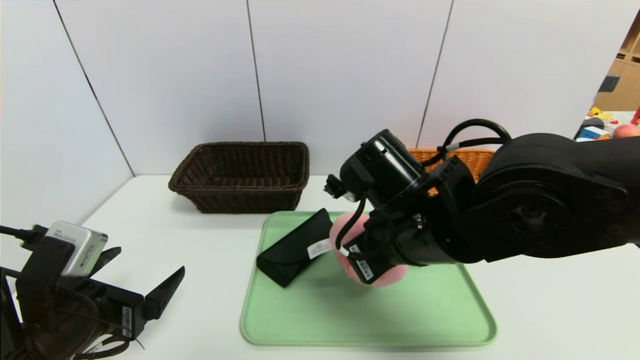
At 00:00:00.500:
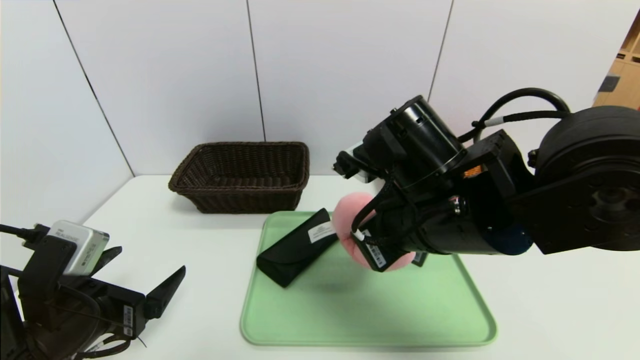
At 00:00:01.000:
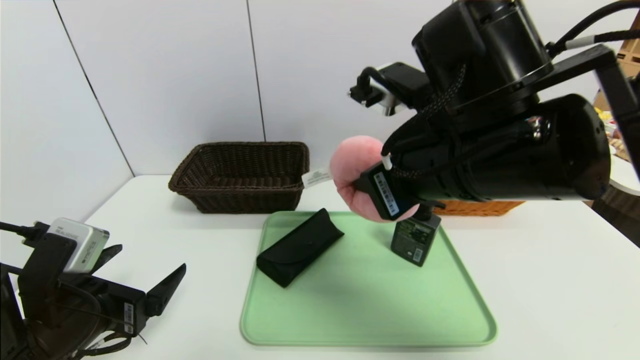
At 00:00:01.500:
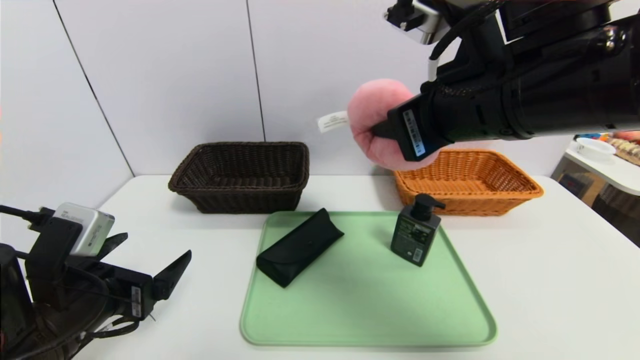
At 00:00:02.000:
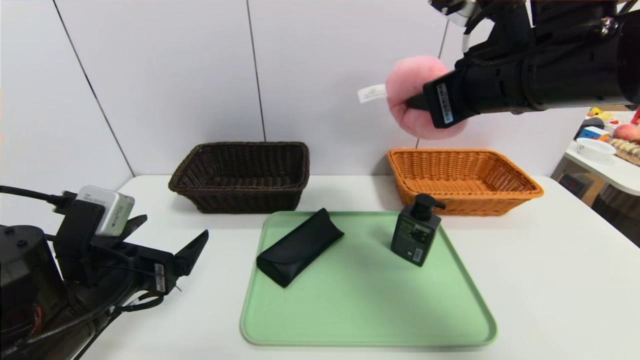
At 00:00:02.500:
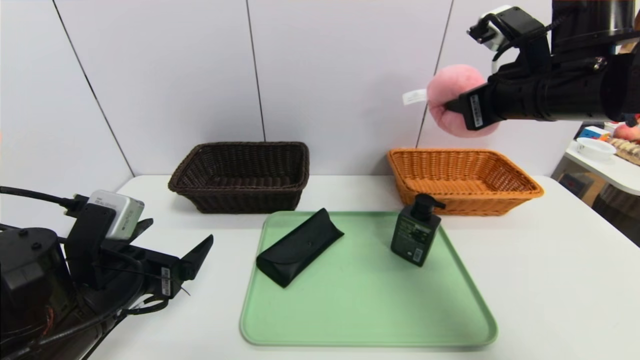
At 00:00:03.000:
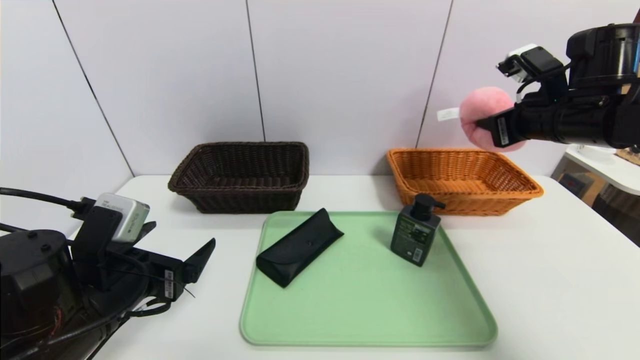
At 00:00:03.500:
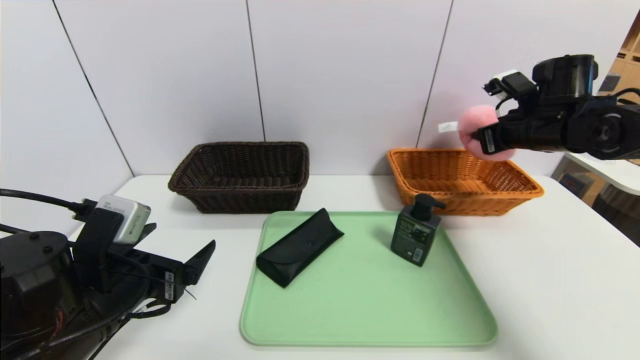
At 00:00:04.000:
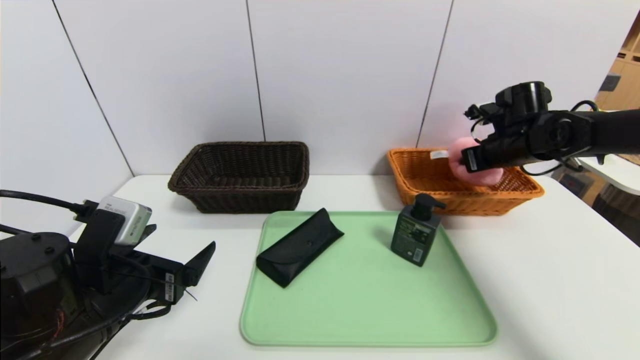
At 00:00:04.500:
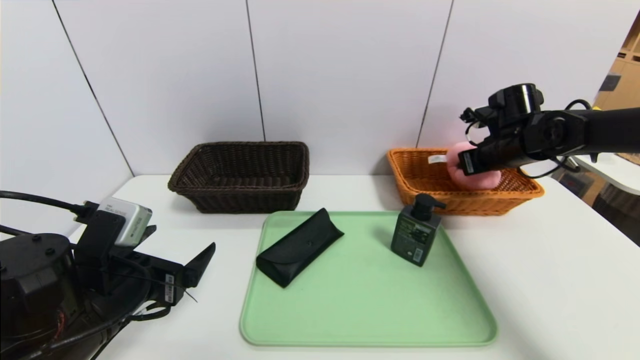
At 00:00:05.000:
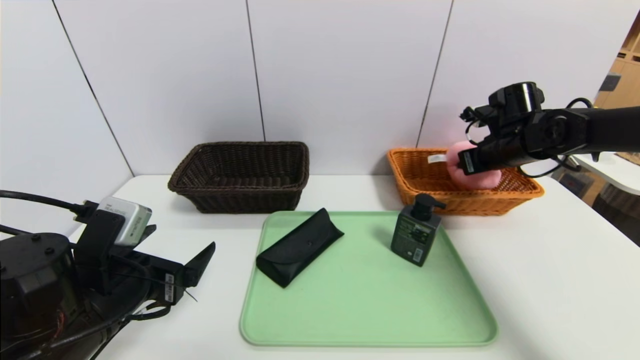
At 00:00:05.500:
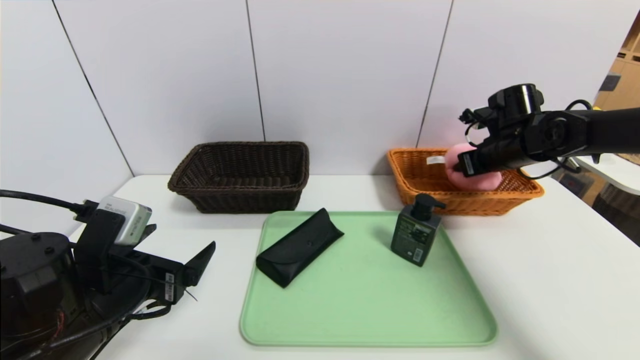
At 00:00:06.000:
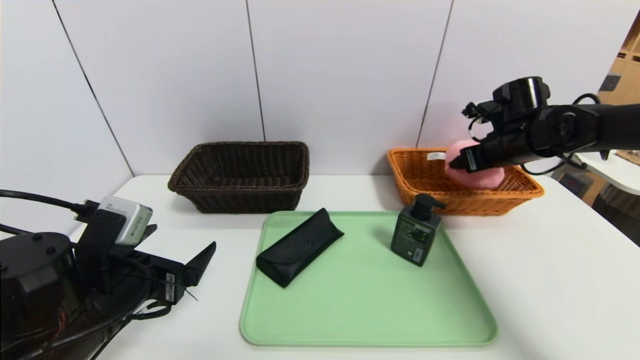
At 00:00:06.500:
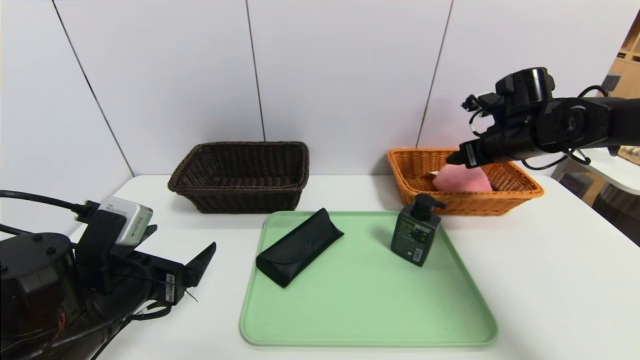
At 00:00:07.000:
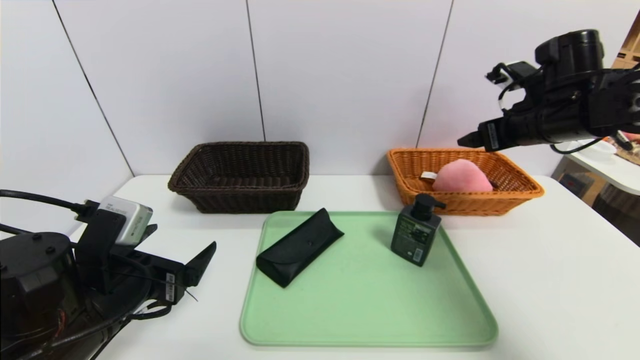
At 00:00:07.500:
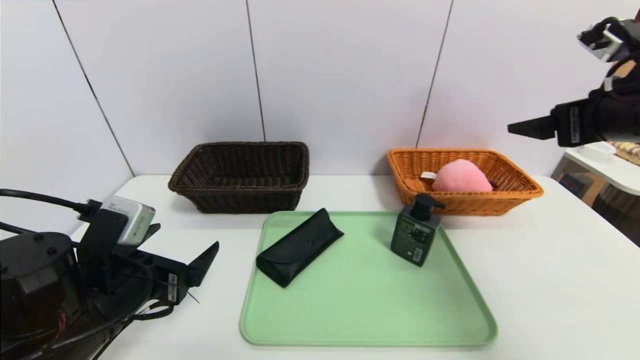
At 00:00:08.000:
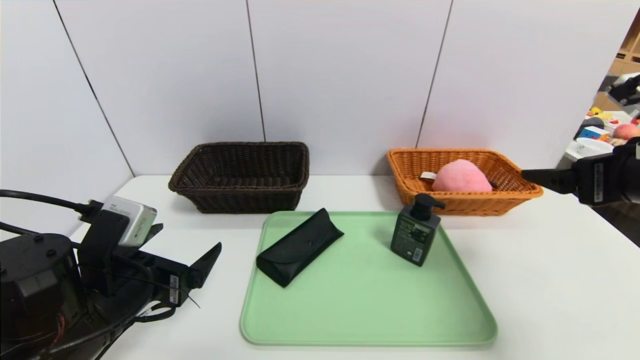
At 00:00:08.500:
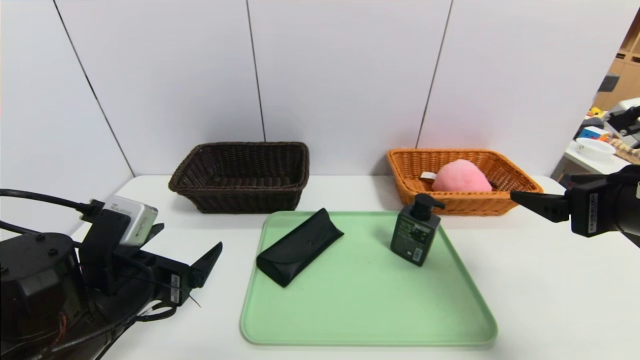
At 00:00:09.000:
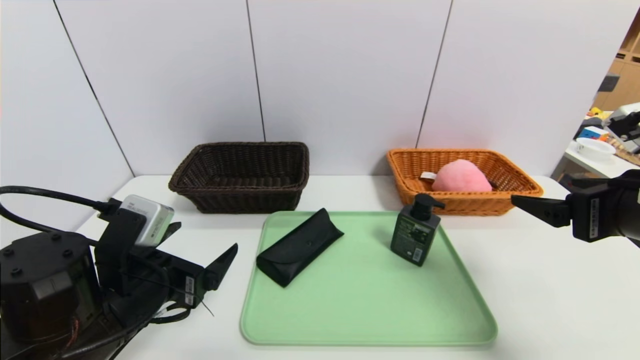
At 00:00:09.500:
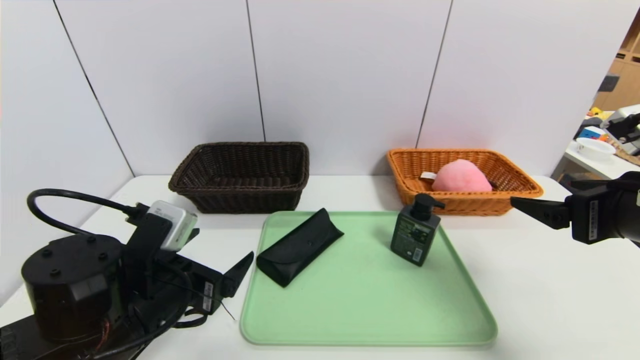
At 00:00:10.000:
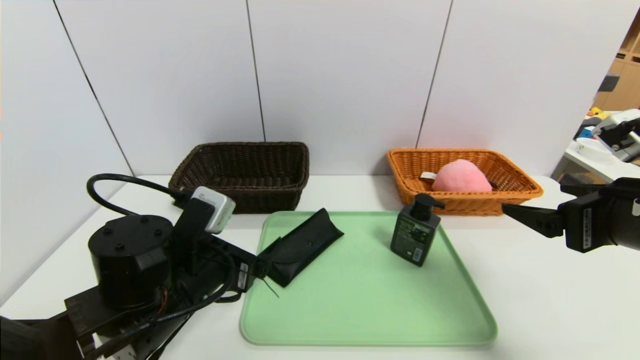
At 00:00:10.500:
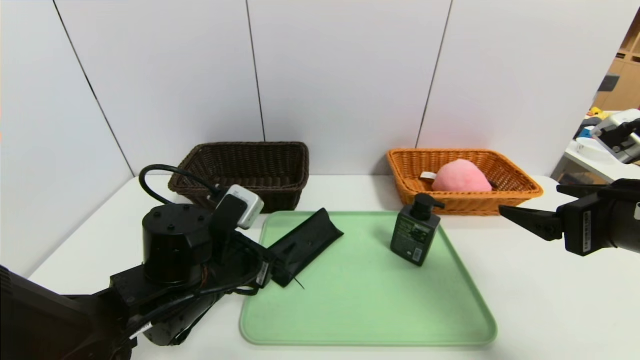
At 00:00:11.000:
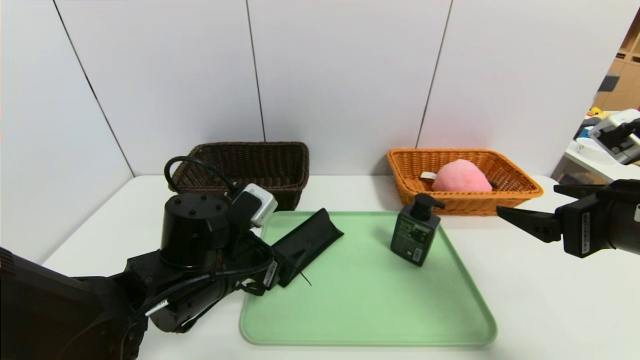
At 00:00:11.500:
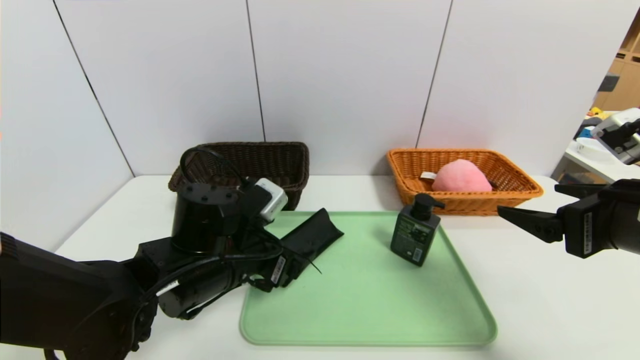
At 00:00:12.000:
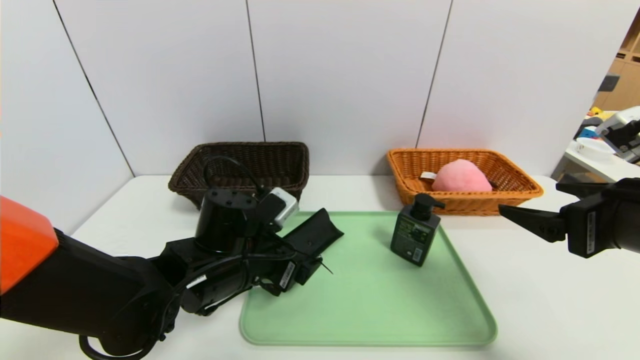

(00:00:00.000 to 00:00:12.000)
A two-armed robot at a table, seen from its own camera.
Task of the whole recording: place the food in the right basket with the right gripper, and place the non food items in the left basket with the left gripper.
Step, 00:00:00.000 - 00:00:06.500: Grasp the peach doll and put it in the right basket.
00:00:00.000 - 00:00:02.000: The right gripper goes roughly 15 cm upward and to the right.
00:00:02.000 - 00:00:04.000: The right gripper is displaced forward, to the right and downward by about 25 cm.
00:00:04.000 - 00:00:06.000: The right gripper opens its fingers.
00:00:06.000 - 00:00:08.000: The right gripper heads backward, covering roughly 20 cm.
00:00:08.000 - 00:00:10.000: The left gripper shifts about 5 cm to the right.
00:00:10.000 - 00:00:12.000: The left gripper changes place by some 5 cm.

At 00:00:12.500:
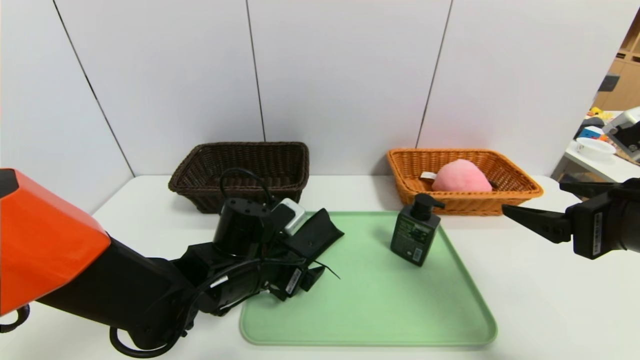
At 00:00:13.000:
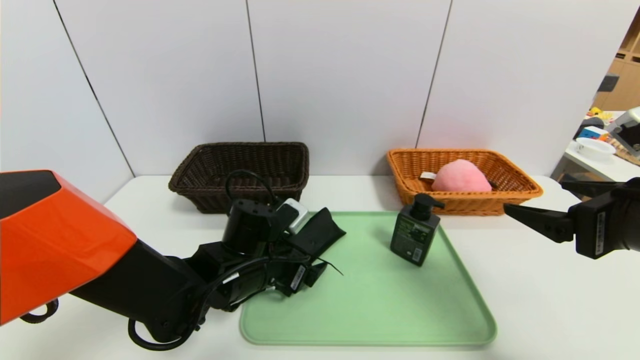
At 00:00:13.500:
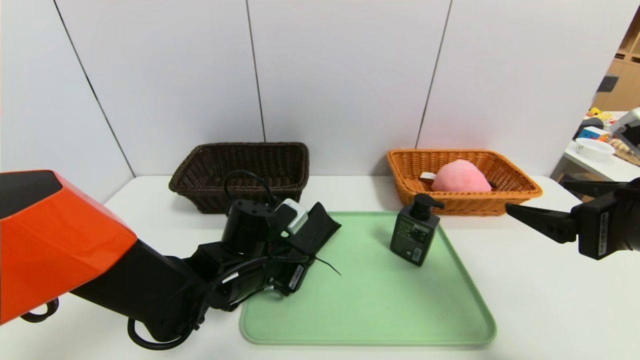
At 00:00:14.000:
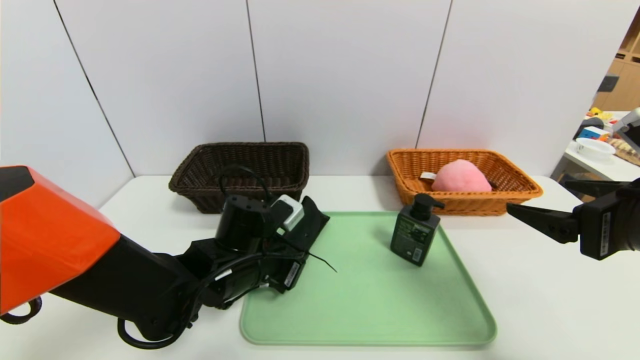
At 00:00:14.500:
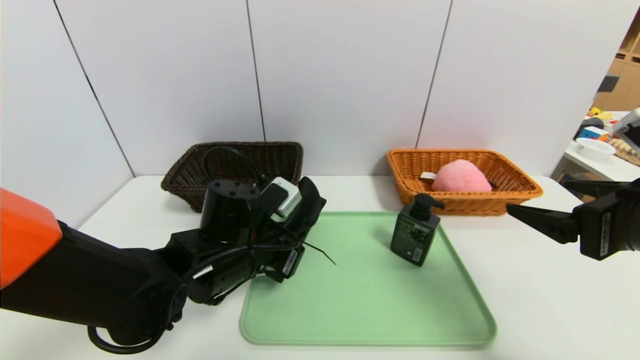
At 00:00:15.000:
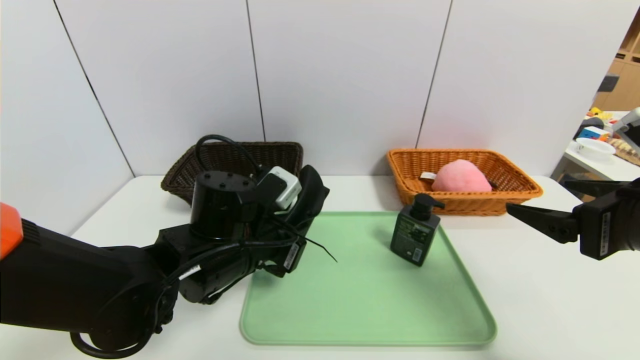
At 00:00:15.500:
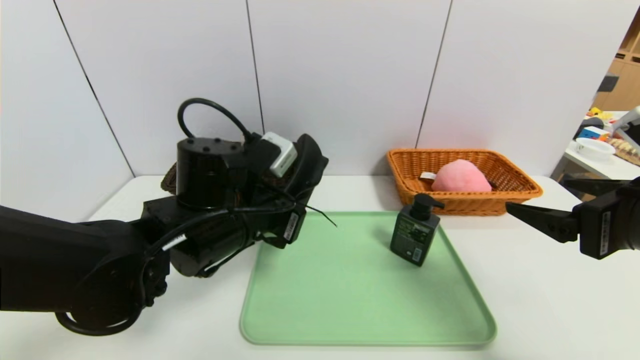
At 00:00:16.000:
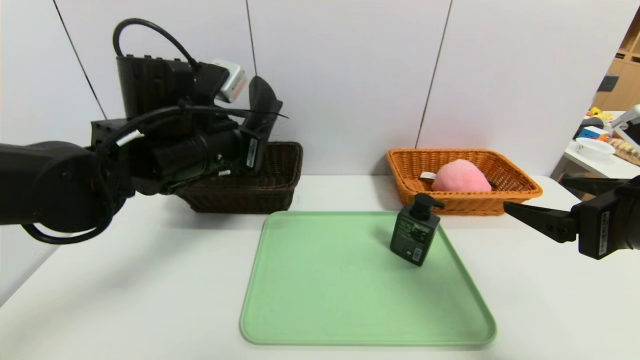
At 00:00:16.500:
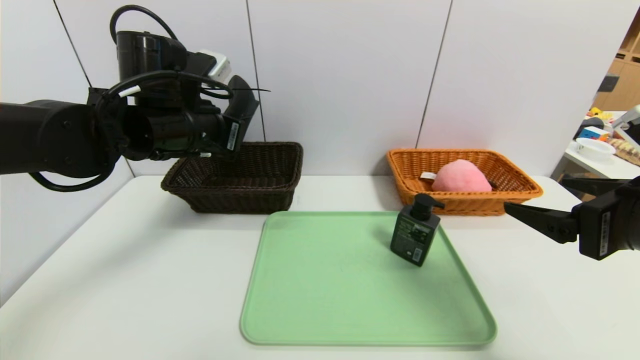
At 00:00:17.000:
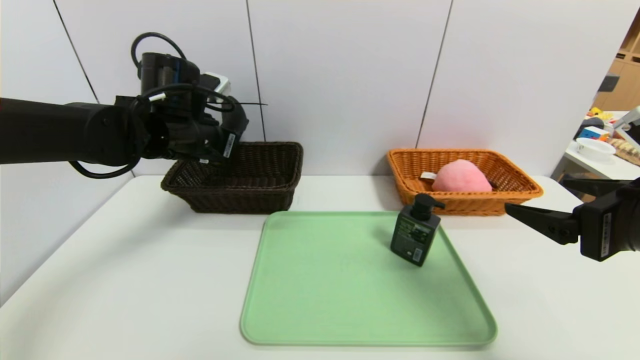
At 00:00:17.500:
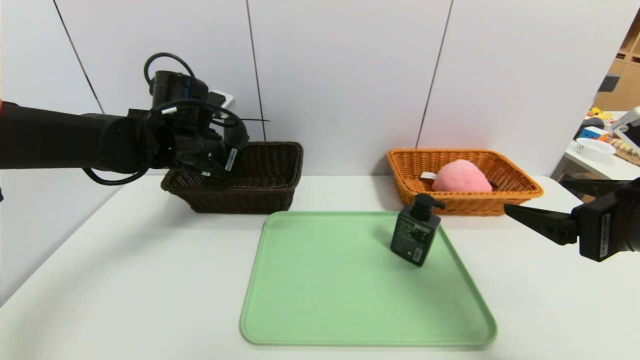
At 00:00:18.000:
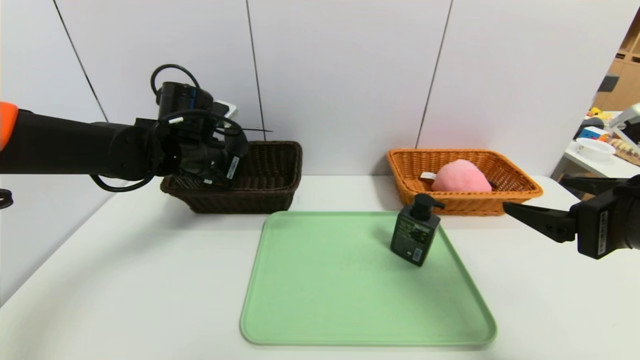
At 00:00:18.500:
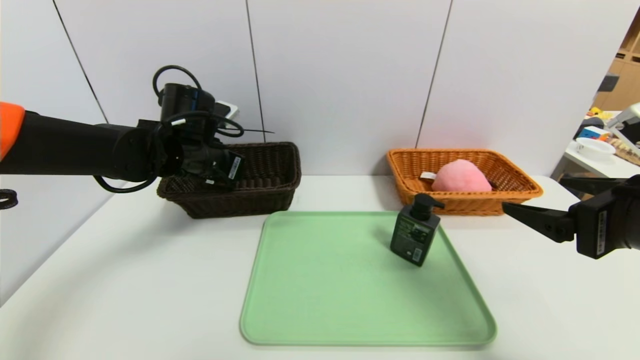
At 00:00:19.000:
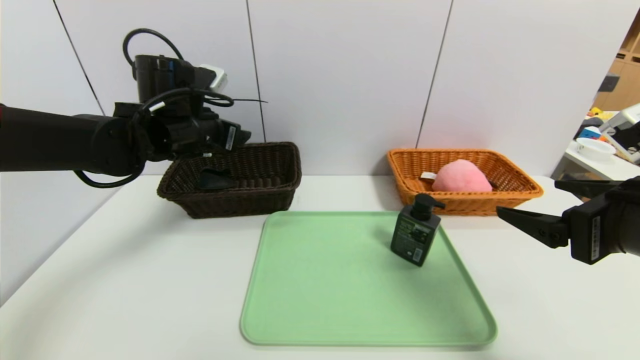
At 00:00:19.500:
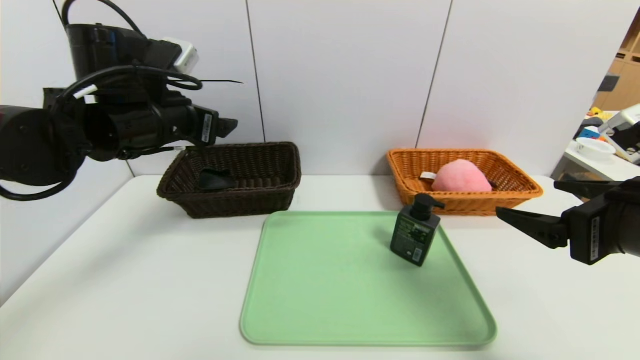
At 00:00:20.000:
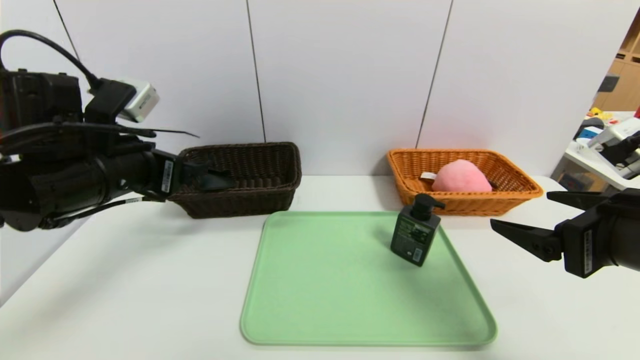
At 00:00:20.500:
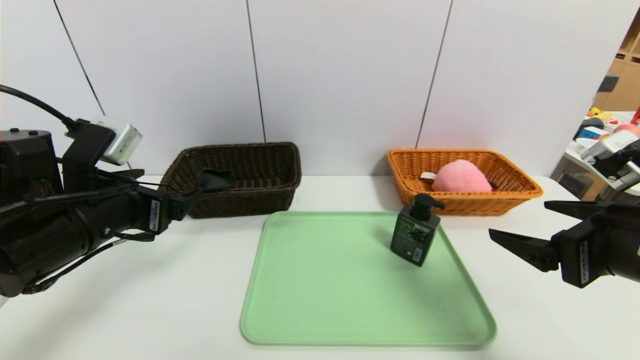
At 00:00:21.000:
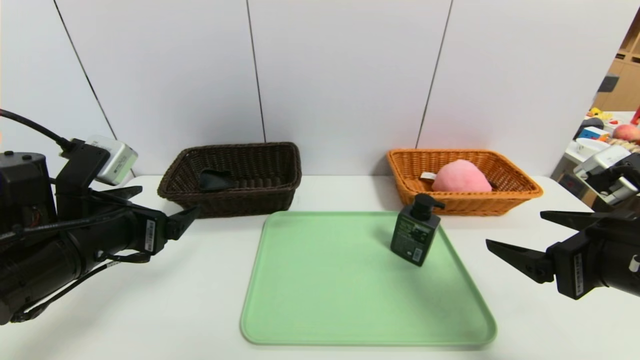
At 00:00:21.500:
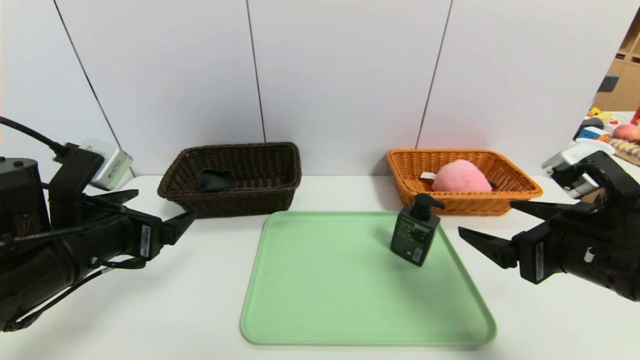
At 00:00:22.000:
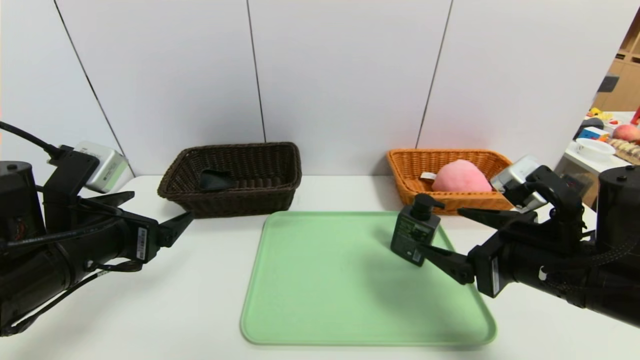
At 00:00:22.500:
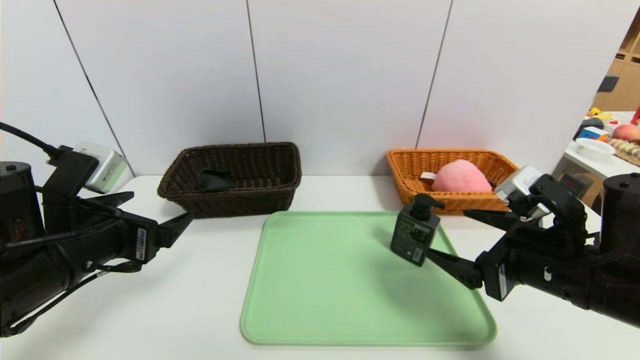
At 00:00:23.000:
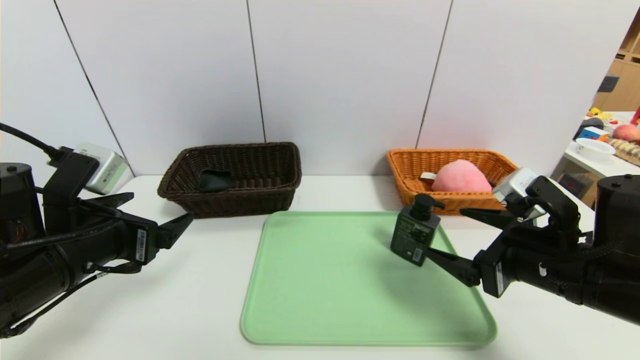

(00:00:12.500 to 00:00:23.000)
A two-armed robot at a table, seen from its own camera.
Task of the whole recording: place the food in the right basket with the right gripper, and place the non food items in the left basket with the left gripper.
Step, 00:00:12.500 - 00:00:19.500: Grasp the glasses case and put it in the left basket.
00:00:12.500 - 00:00:14.500: The left gripper closes its fingers.
00:00:14.500 - 00:00:16.500: The left gripper is displaced upward, to the left and forward by about 20 cm.
00:00:16.500 - 00:00:19.000: The left gripper opens its fingers.
00:00:19.000 - 00:00:21.000: The left gripper travels backward by about 15 cm.
00:00:21.000 - 00:00:23.000: The right gripper shifts by about 5 cm.
